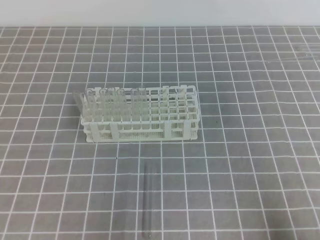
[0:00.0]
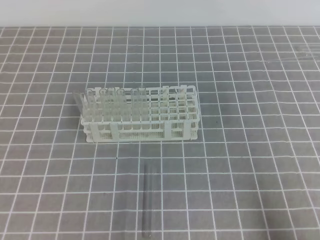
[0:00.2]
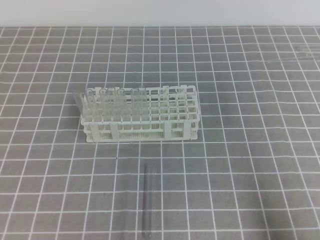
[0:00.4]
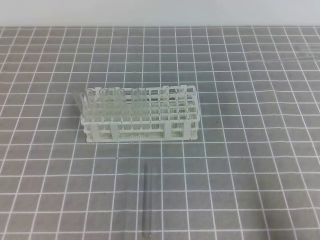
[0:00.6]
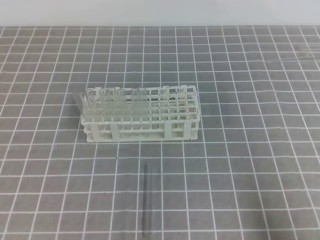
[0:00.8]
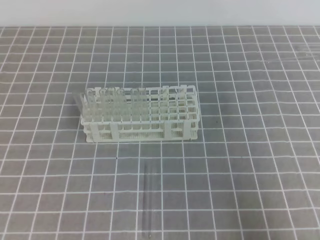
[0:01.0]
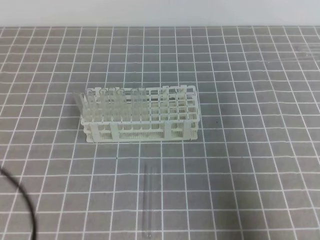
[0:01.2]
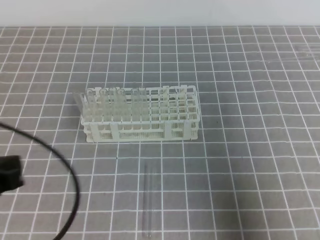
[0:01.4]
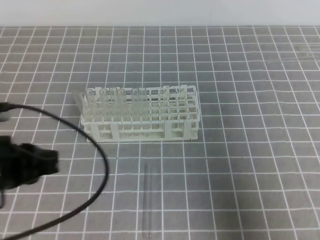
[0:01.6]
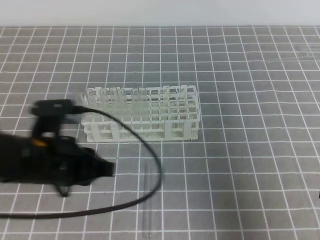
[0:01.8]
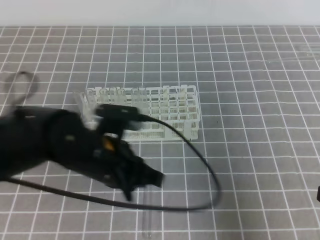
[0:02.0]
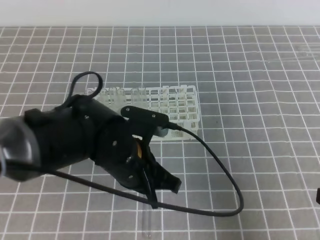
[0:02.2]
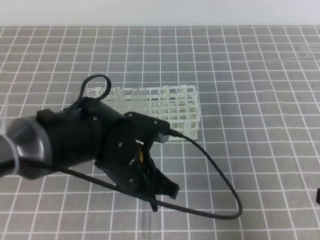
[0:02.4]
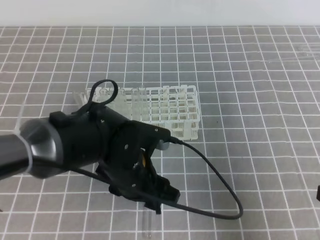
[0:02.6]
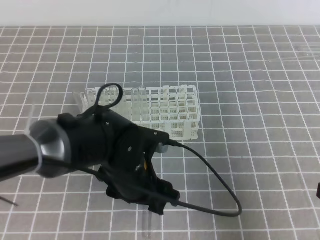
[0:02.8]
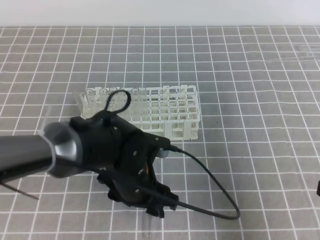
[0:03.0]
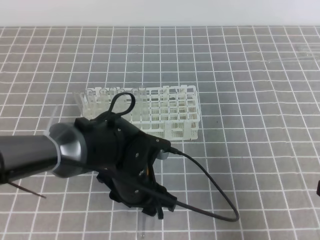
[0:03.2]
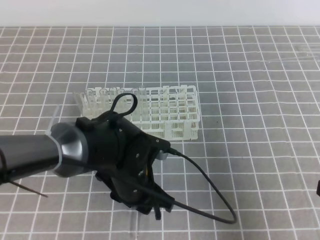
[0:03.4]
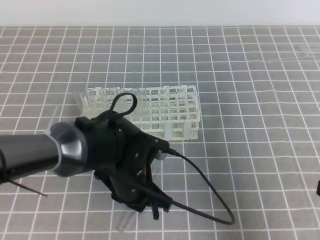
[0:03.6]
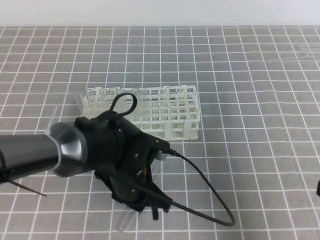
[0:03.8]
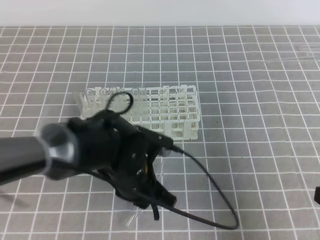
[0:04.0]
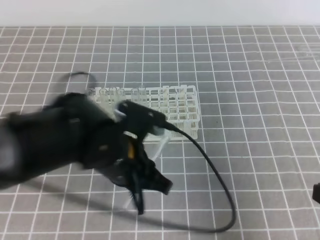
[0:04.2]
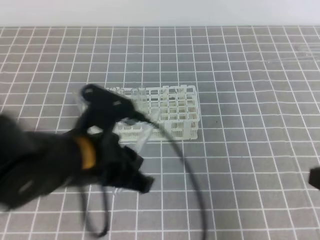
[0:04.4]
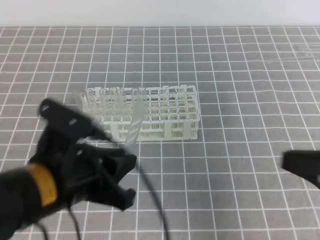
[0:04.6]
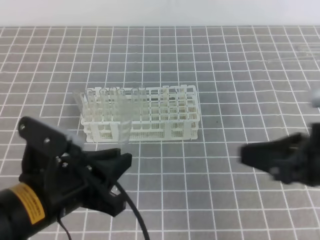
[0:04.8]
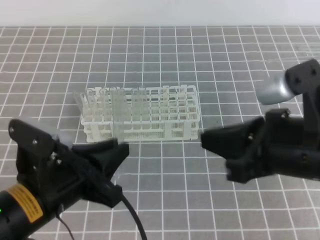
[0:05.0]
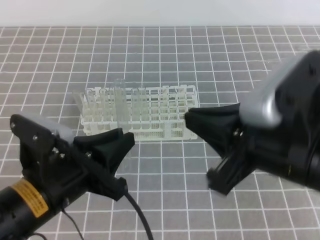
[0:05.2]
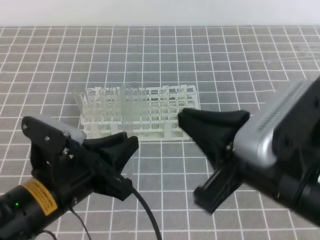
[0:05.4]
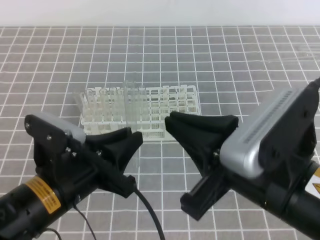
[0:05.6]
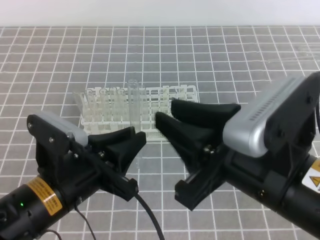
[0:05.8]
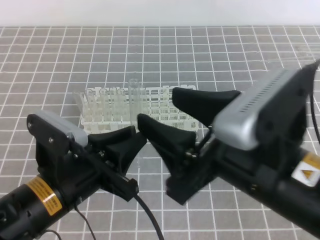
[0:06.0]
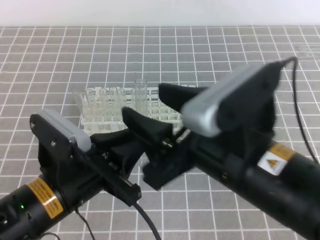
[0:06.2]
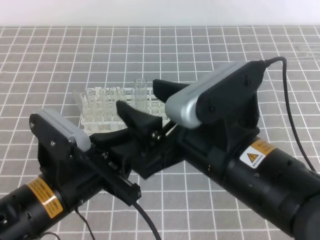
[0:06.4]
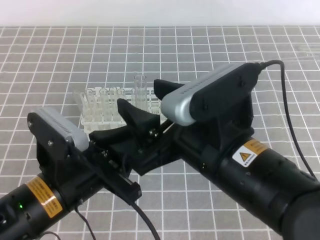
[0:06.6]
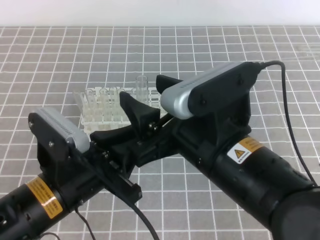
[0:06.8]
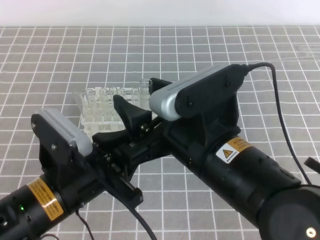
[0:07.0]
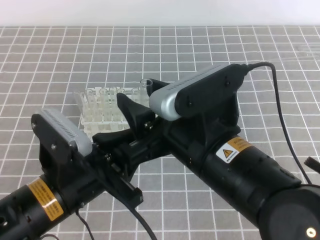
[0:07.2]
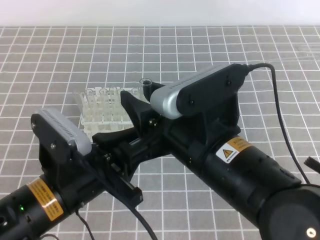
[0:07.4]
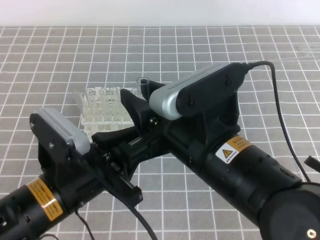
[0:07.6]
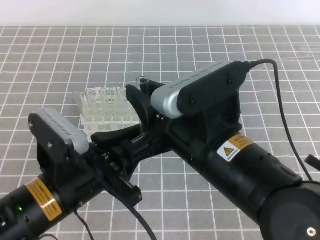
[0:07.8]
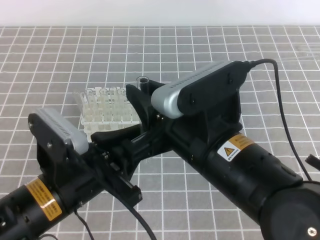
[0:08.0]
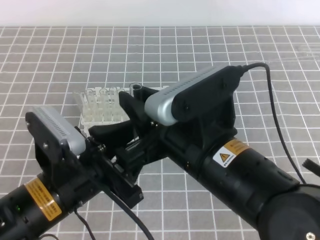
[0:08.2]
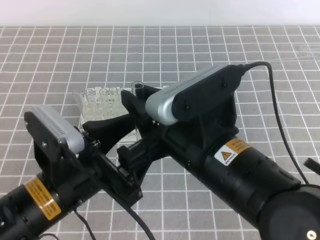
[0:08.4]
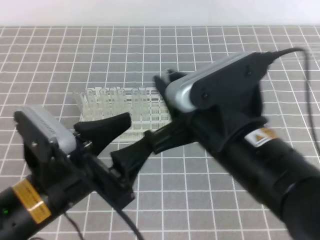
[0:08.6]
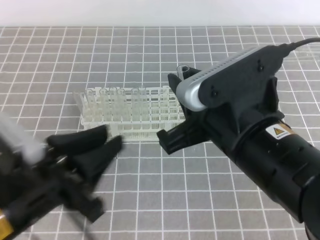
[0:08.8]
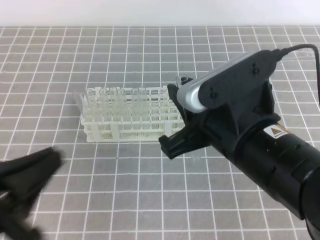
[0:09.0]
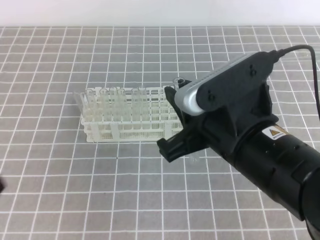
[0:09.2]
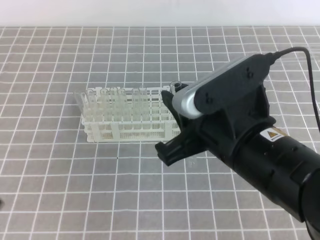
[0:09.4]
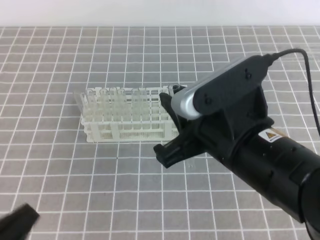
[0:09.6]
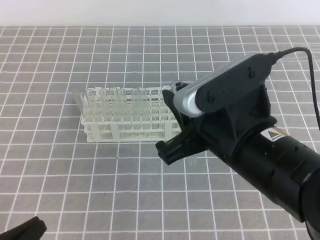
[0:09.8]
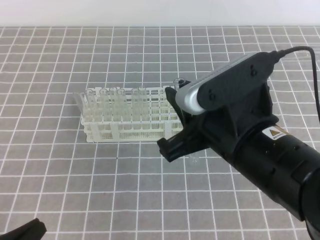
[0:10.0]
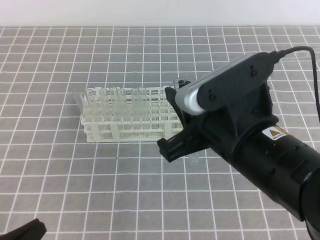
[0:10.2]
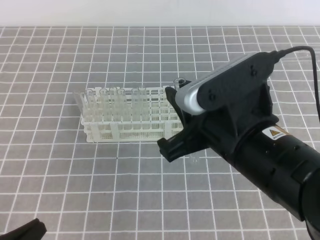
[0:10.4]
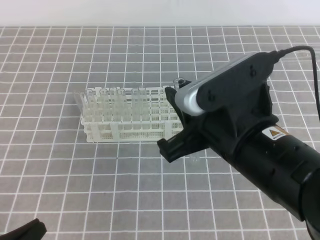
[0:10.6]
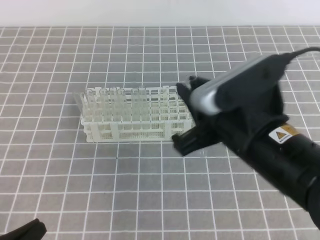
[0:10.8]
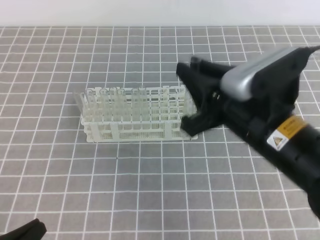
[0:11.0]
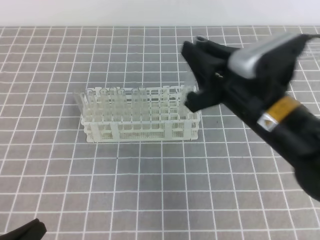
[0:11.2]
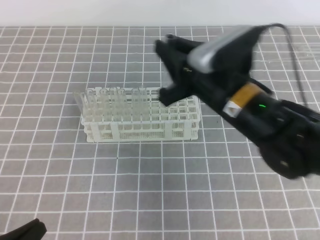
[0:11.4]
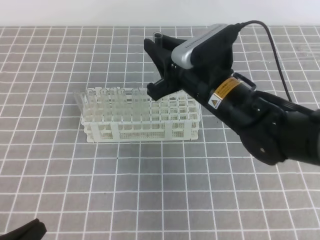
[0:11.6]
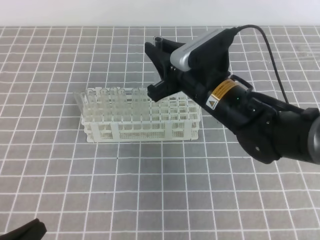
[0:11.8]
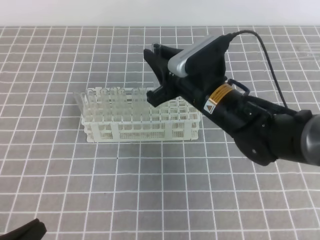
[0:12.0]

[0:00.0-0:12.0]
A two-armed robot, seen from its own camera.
0:00.0 to 0:01.6: The right gripper goes roughly 5 cm upward. Meanwhile the left gripper goes some 15 cm forward, upward and to the right.
0:01.6 to 0:03.0: The left gripper moves to the right and downward, approximately 20 cm, and opens up.
0:03.0 to 0:04.4: The left gripper moves upward, approximately 10 cm, and closes its fingers.
0:04.4 to 0:06.0: The right gripper moves to the left, some 15 cm, and opens its fingers; the left gripper moves roughly 5 cm.
0:06.0 to 0:07.6: The right gripper changes place by about 5 cm.
0:07.6 to 0:09.0: The left gripper moves to the left and backward, some 10 cm, and opens, then closes once more.
0:09.0 to 0:10.4: The left gripper travels downward by some 10 cm.
0:10.4 to 0:12.0: The right gripper moves forward and downward, roughly 15 cm.

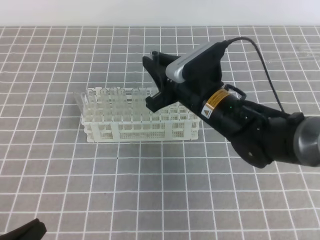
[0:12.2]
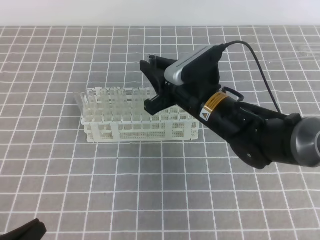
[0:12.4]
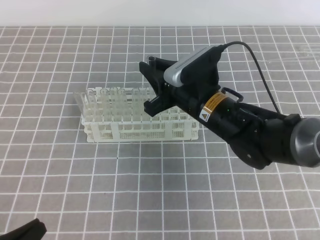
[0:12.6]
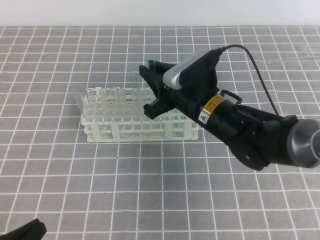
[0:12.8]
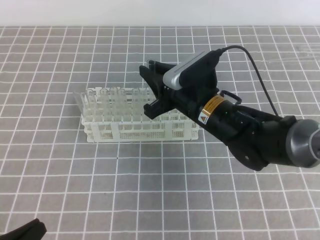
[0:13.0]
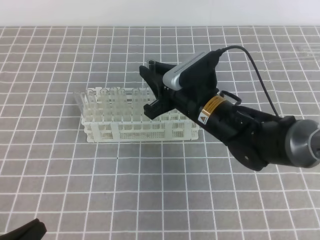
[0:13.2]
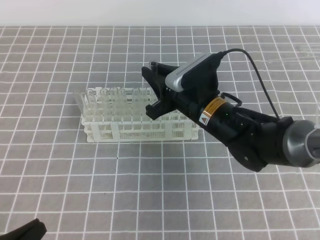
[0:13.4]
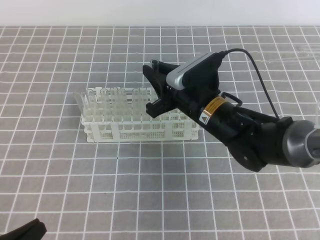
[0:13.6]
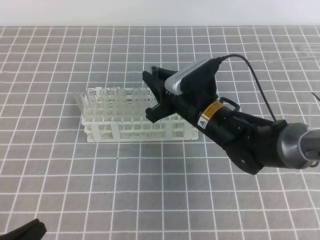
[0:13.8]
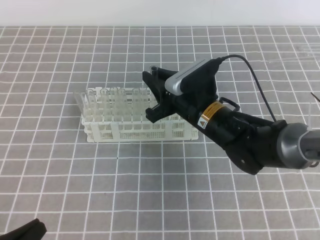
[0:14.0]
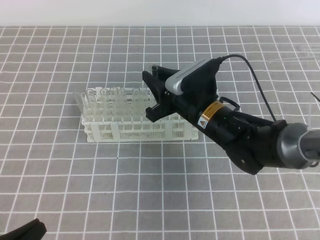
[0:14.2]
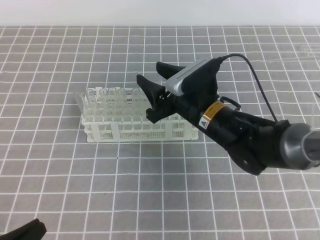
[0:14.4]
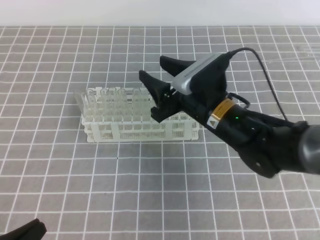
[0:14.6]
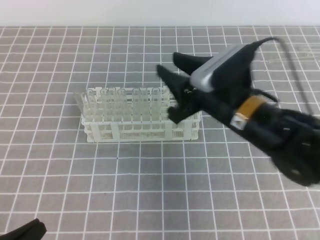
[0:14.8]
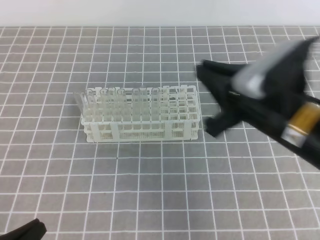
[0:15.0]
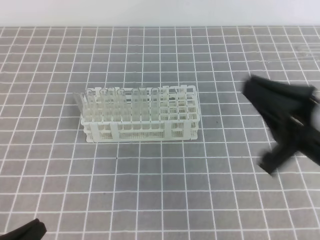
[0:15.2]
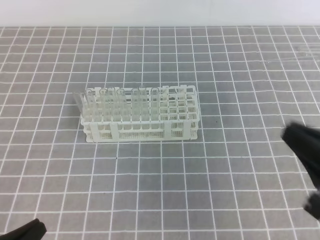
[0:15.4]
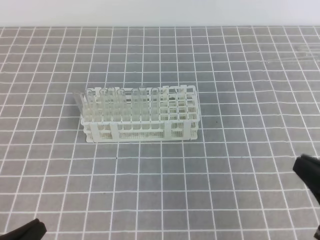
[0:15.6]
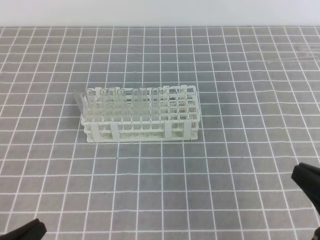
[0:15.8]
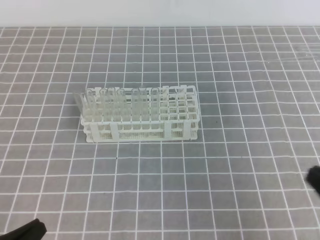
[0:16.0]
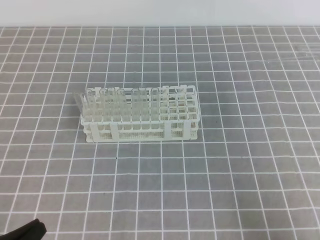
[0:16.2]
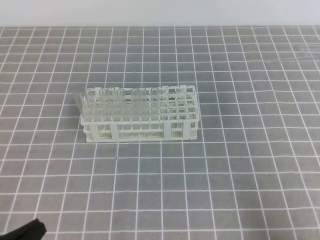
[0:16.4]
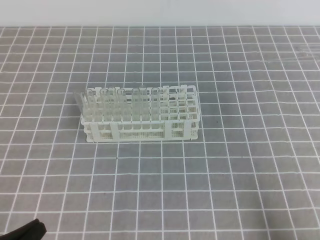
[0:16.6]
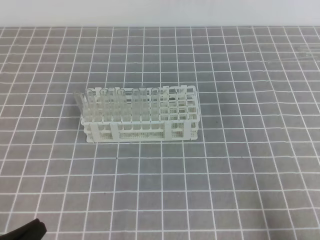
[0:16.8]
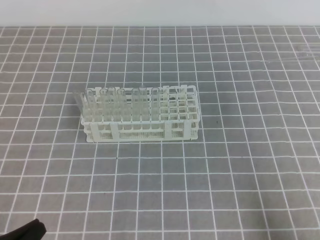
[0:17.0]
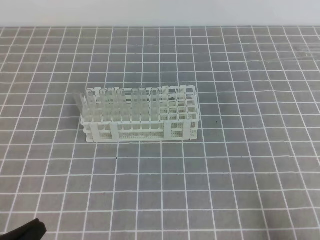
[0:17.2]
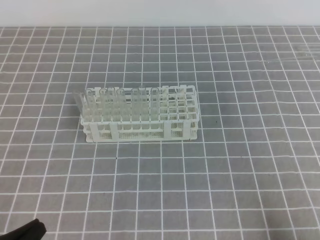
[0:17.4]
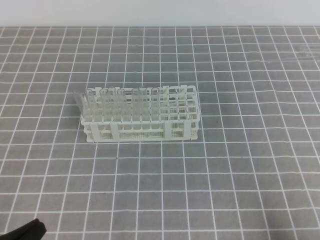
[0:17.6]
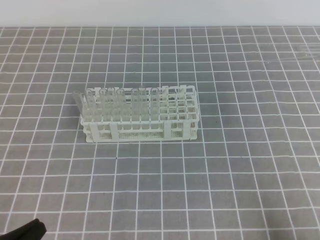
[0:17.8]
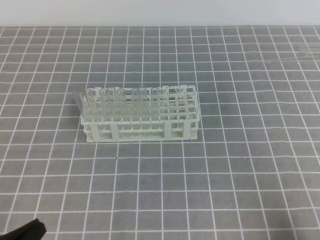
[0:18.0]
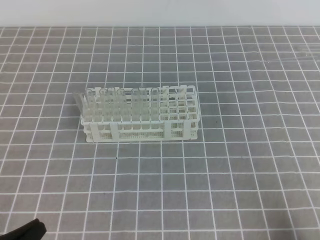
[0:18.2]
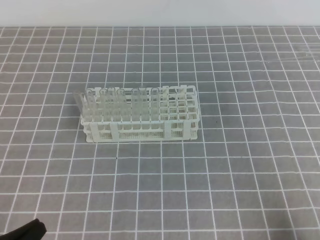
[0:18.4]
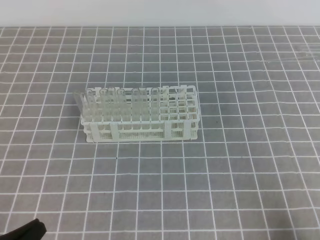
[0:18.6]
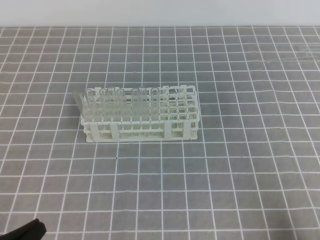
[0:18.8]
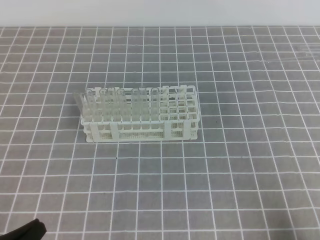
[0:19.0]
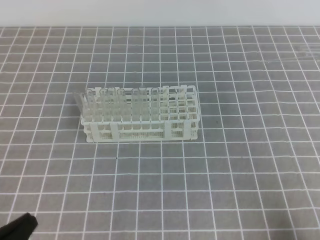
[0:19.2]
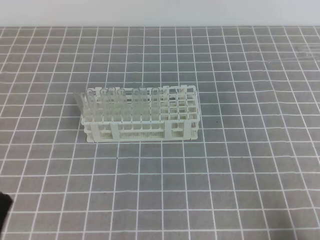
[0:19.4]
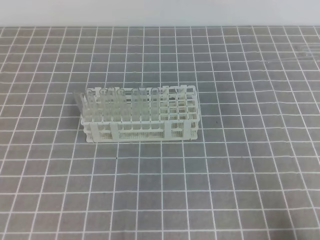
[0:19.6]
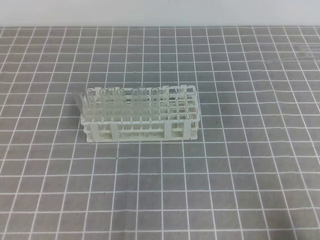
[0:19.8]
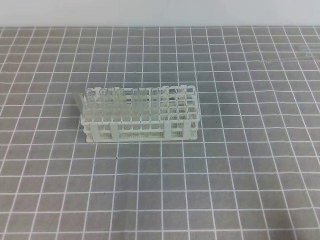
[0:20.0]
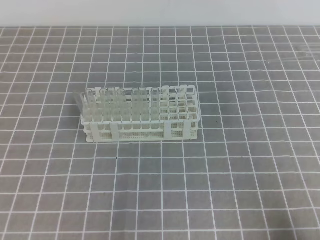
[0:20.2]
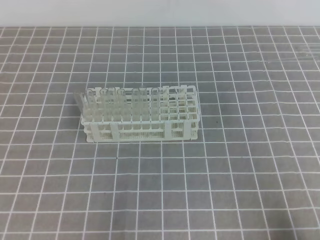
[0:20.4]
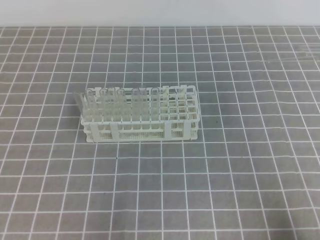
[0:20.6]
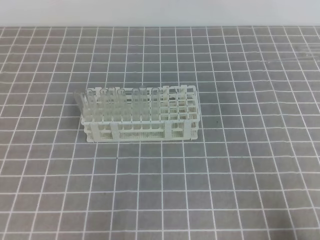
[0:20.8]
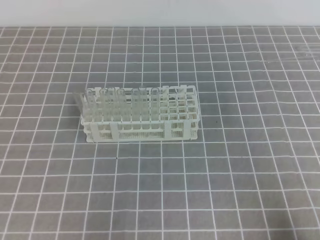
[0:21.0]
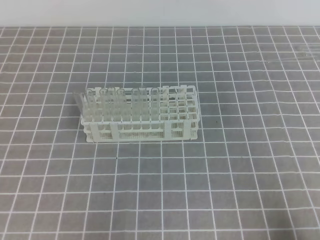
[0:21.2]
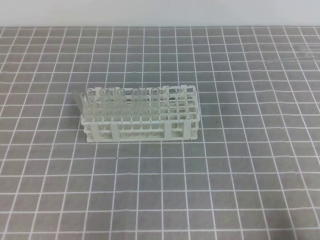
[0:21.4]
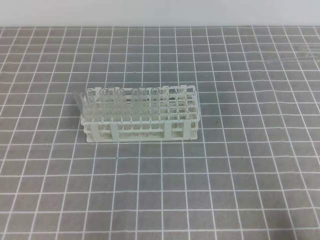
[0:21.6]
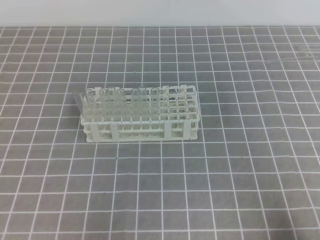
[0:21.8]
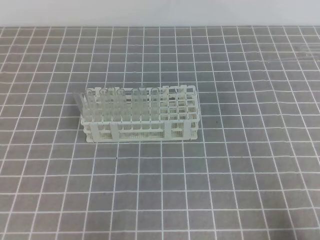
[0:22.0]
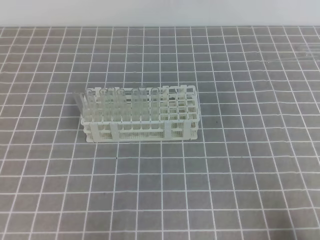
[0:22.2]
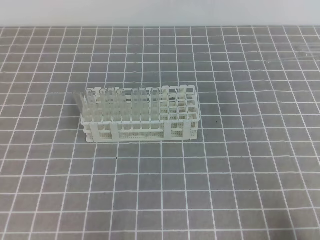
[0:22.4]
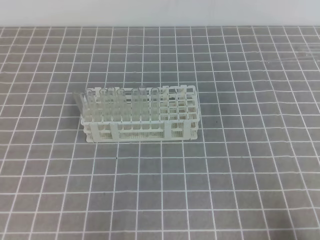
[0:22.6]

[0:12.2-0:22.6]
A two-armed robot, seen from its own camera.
0:12.2 to 0:13.6: There are only small adjustments of the grippers.
0:13.6 to 0:15.2: The right gripper goes about 20 cm backward, to the right and upward, and opens and closes again.
0:15.2 to 0:16.6: The right gripper moves to the right, downward and backward, roughly 20 cm.
0:21.2 to 0:22.6: Both grippers stay put.
